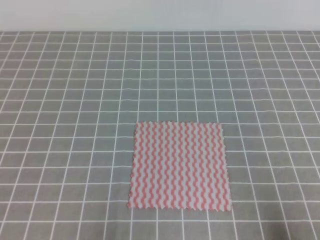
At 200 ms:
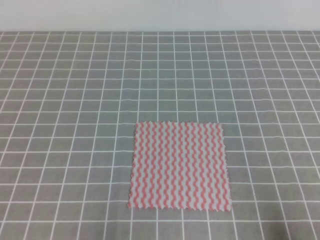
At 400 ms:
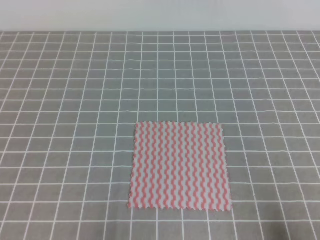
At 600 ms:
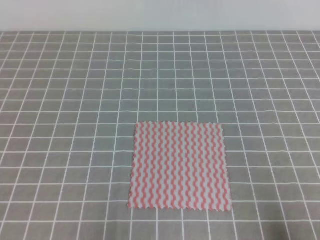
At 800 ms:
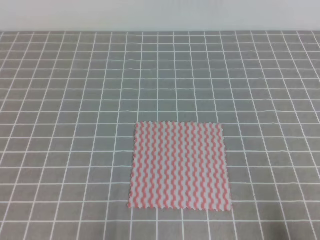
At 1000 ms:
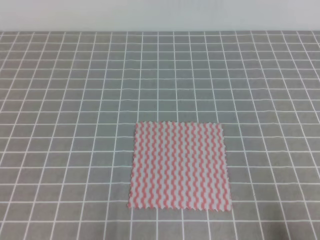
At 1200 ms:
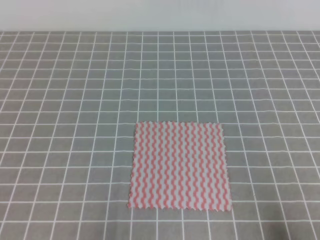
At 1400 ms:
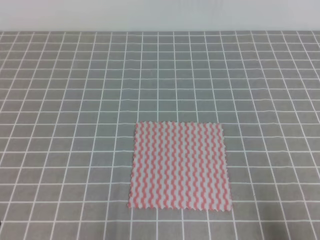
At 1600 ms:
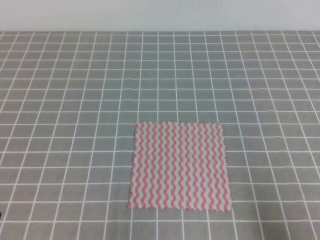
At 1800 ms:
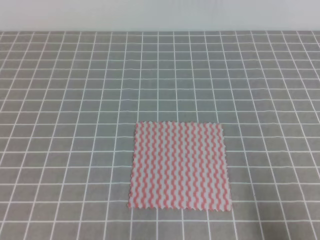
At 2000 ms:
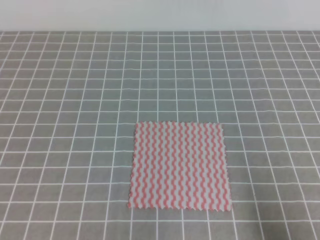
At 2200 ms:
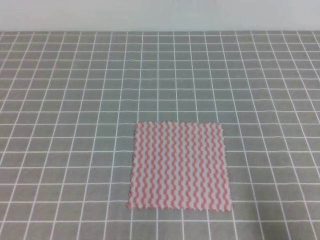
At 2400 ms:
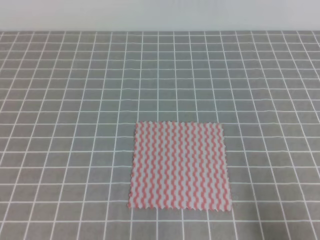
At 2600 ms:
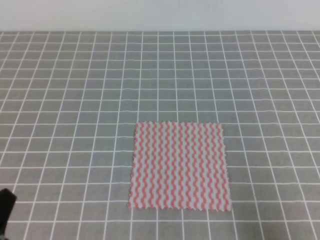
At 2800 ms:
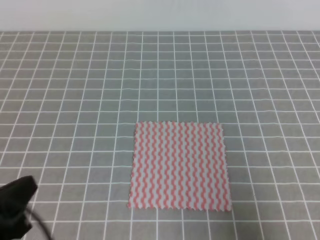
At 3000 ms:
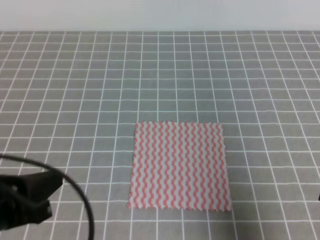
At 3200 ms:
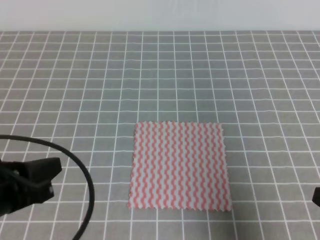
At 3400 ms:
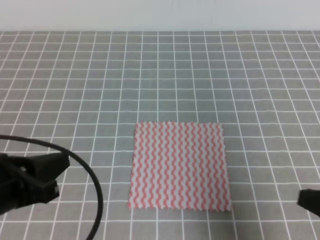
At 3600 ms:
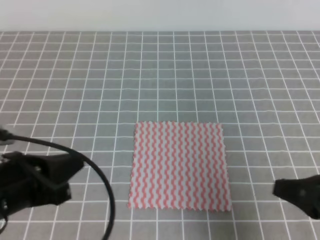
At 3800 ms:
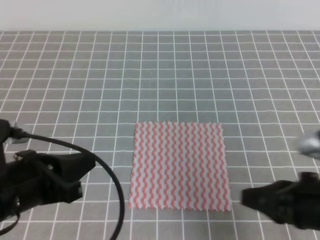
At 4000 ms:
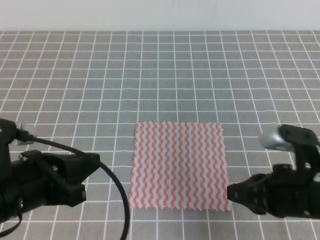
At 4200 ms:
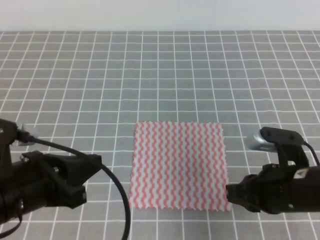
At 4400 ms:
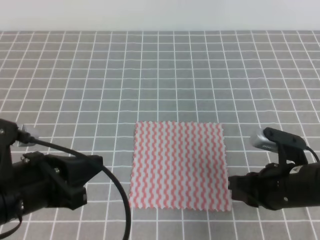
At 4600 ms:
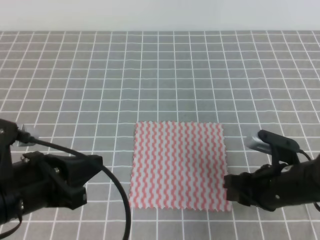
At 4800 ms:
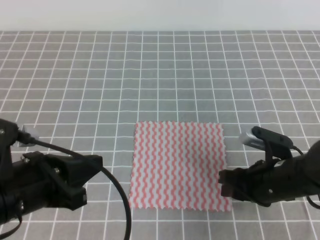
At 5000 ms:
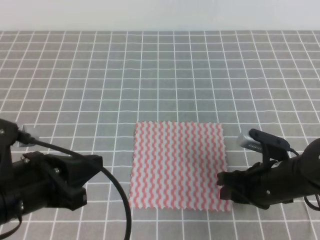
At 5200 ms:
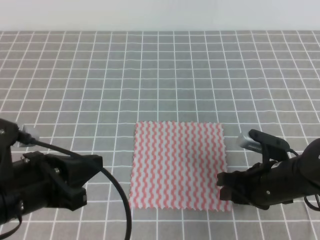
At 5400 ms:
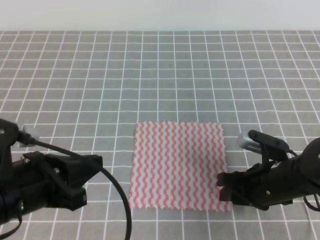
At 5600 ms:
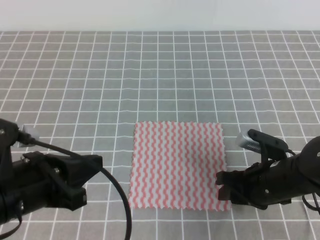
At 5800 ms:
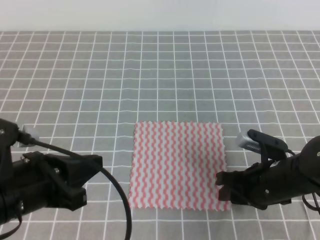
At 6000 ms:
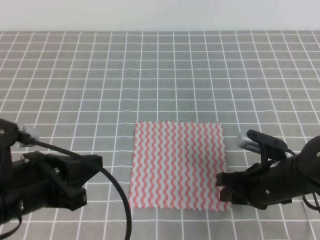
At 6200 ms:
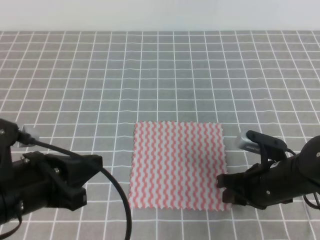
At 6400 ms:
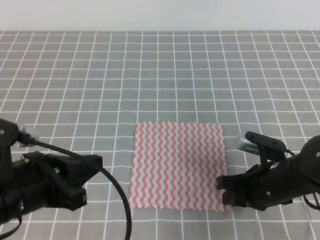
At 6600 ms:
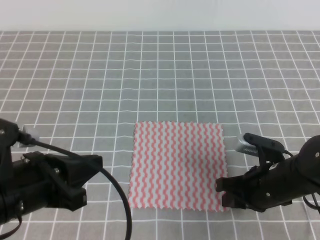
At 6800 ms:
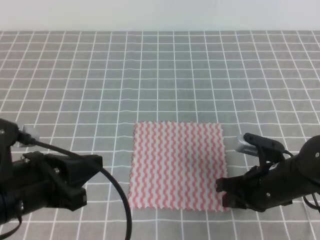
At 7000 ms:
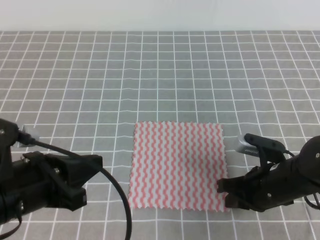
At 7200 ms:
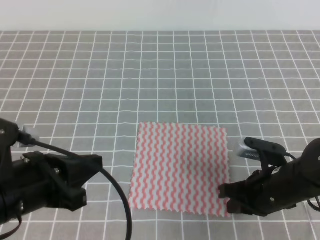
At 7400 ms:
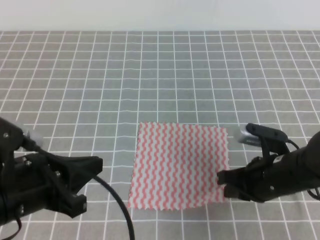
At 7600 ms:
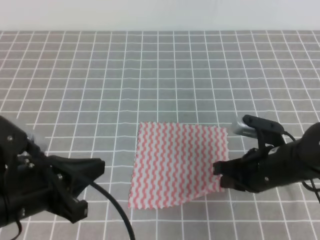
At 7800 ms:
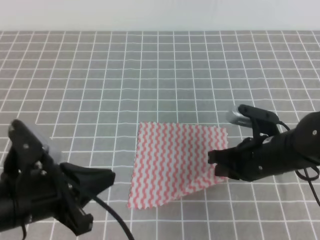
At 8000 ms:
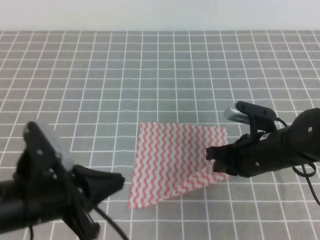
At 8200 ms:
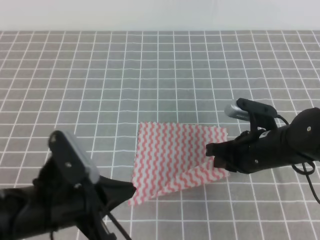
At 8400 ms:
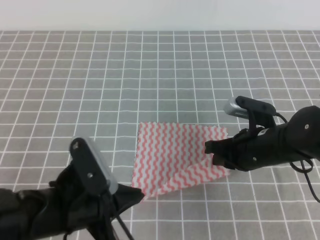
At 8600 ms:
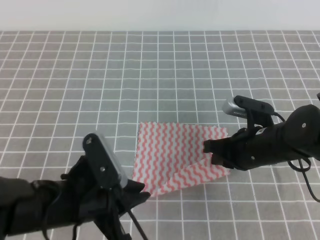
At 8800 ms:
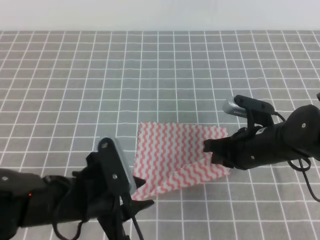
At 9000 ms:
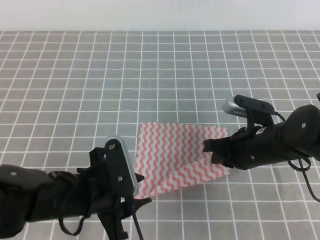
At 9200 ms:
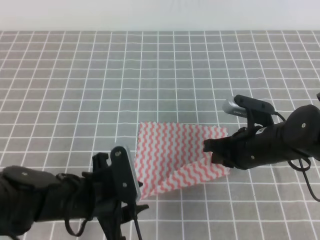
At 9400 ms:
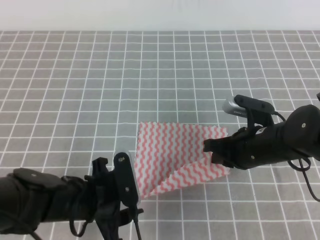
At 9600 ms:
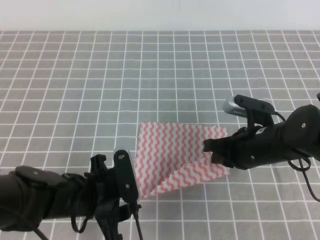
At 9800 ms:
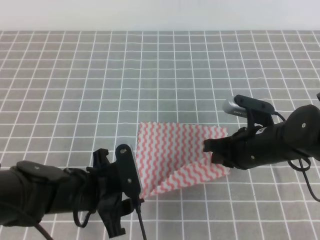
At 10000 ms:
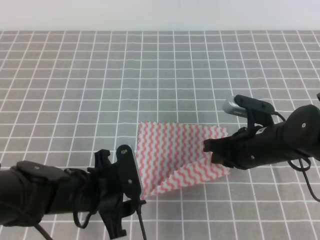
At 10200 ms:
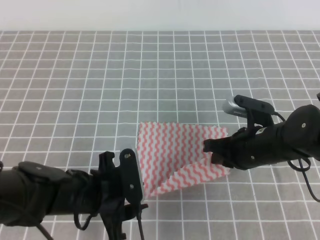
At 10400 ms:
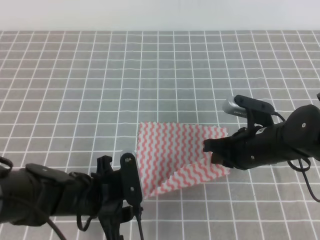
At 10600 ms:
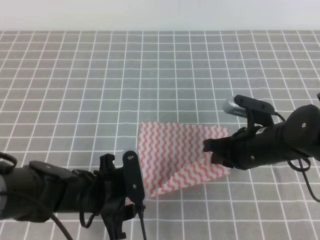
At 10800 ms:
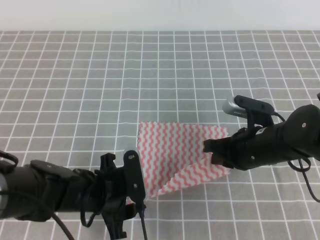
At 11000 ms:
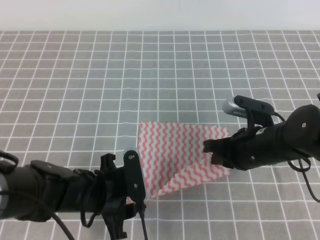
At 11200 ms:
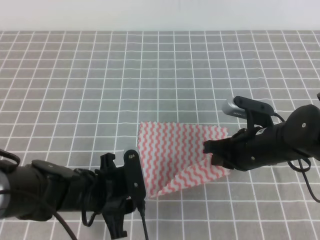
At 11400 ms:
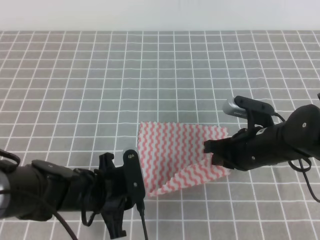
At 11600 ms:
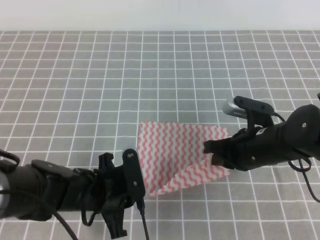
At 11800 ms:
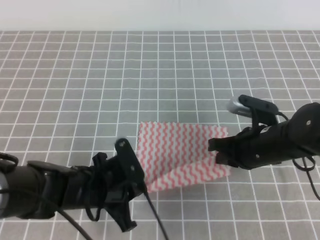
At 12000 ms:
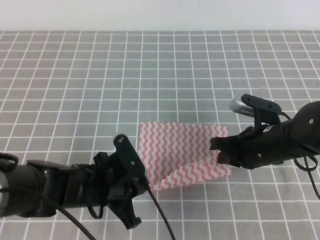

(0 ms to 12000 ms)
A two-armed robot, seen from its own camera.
1600 ms - 3000 ms: The right gripper heads upward, covering roughly 5 cm, while the left gripper travels upward and forward by roughly 10 cm.
3000 ms - 4400 ms: The right gripper moves forward, to the left and downward, roughly 15 cm, and opens its fingers. Meanwhile the left gripper shifts by roughly 5 cm.
4400 ms - 6000 ms: The right gripper shifts by roughly 5 cm, and opens its fingers.
6000 ms - 7600 ms: The right gripper closes up.
7600 ms - 9000 ms: The left gripper moves to the right and downward, about 10 cm, and opens its fingers.
9000 ms - 10400 ms: The grippers move only a little.
10400 ms - 12000 ms: The left gripper closes.

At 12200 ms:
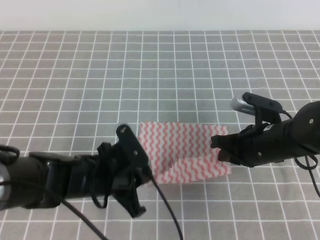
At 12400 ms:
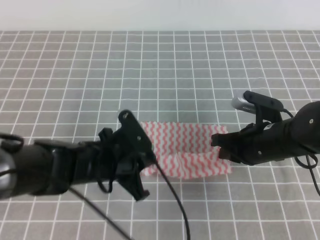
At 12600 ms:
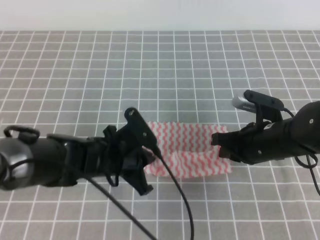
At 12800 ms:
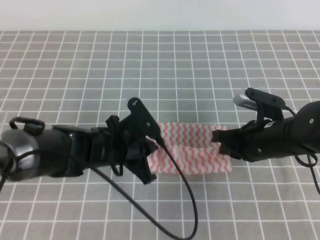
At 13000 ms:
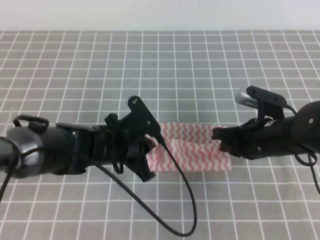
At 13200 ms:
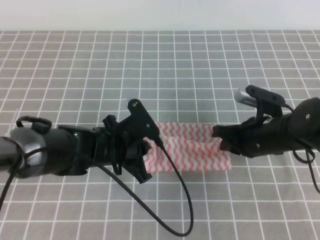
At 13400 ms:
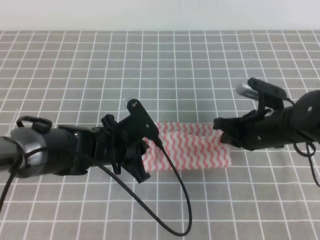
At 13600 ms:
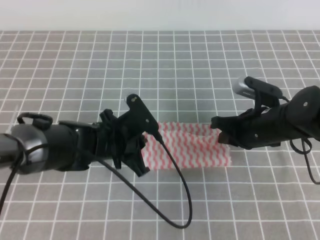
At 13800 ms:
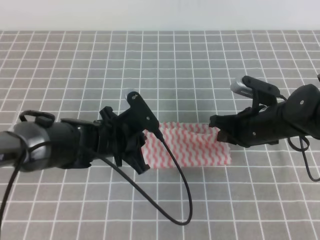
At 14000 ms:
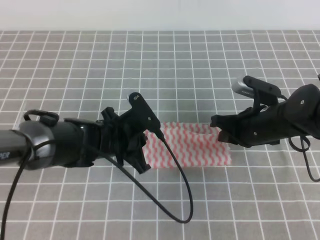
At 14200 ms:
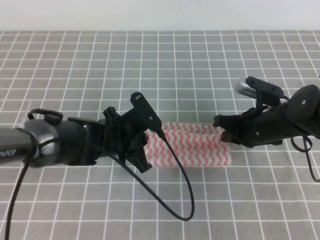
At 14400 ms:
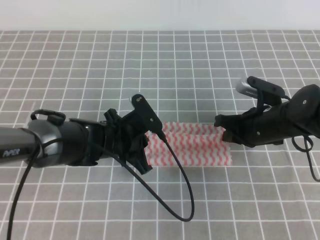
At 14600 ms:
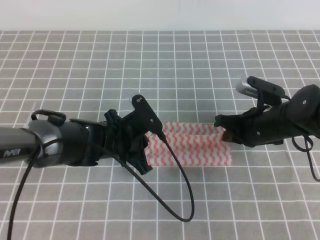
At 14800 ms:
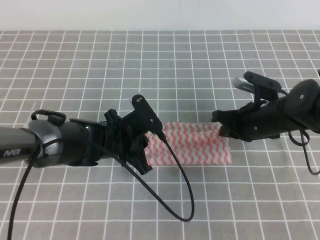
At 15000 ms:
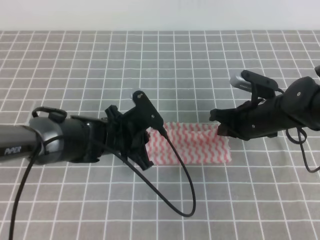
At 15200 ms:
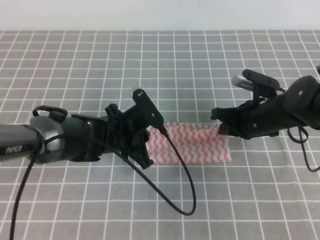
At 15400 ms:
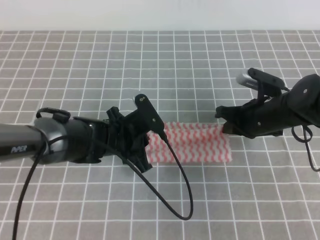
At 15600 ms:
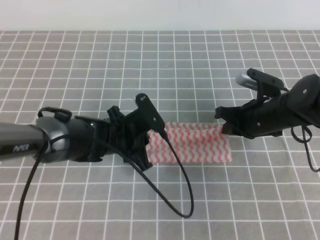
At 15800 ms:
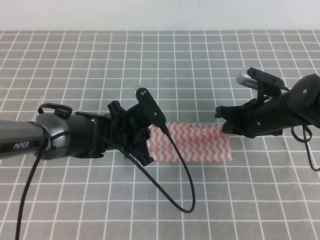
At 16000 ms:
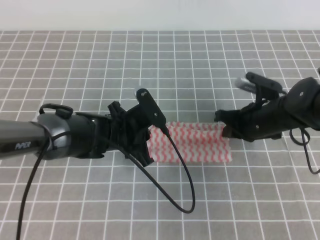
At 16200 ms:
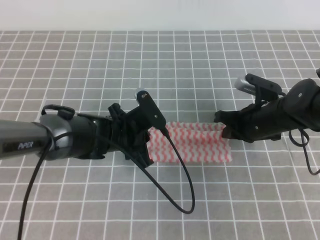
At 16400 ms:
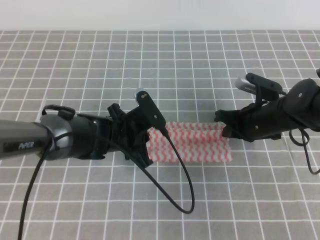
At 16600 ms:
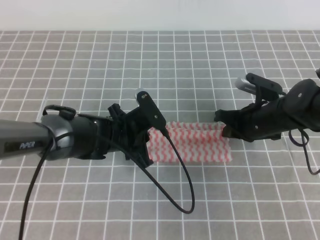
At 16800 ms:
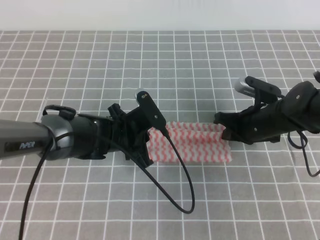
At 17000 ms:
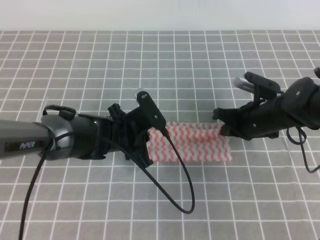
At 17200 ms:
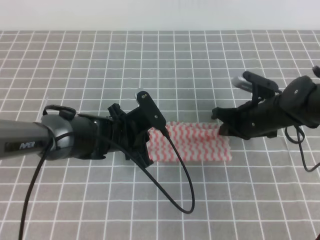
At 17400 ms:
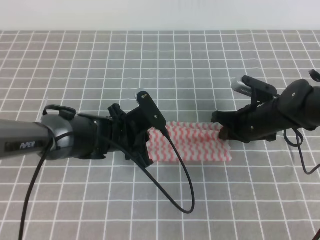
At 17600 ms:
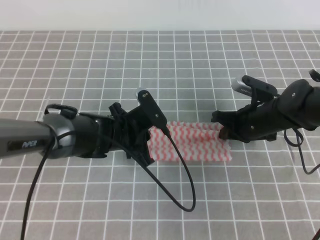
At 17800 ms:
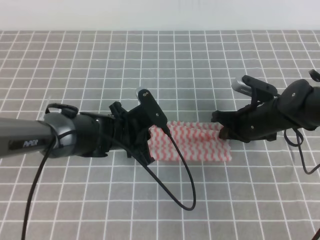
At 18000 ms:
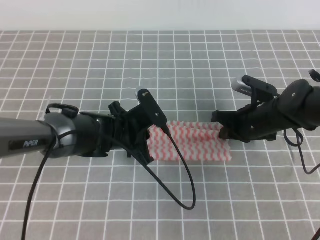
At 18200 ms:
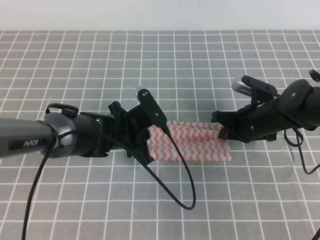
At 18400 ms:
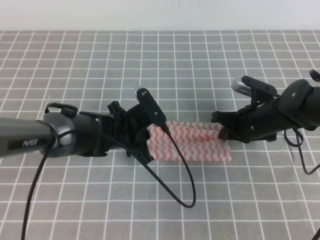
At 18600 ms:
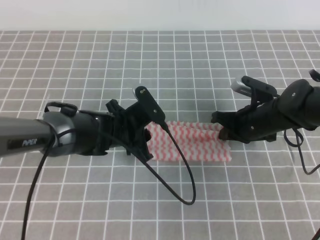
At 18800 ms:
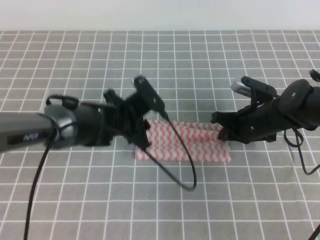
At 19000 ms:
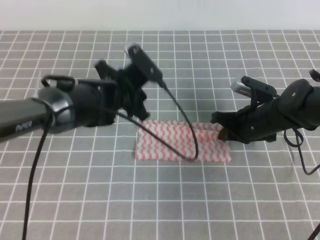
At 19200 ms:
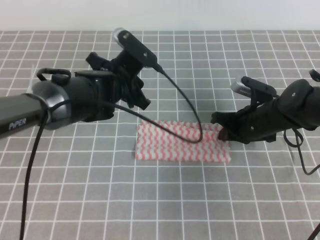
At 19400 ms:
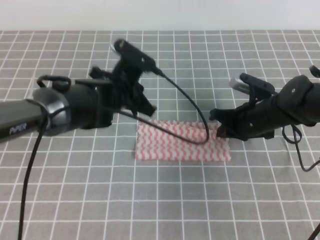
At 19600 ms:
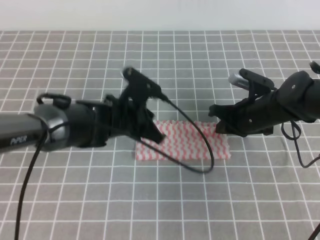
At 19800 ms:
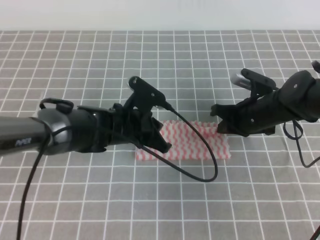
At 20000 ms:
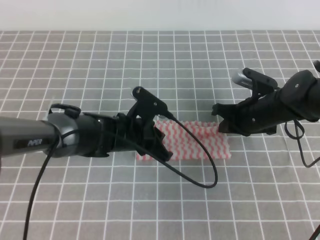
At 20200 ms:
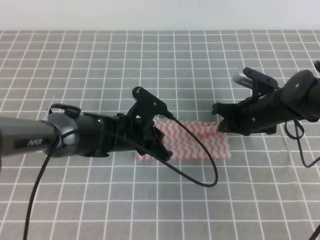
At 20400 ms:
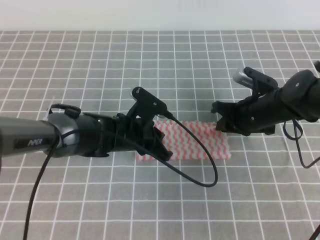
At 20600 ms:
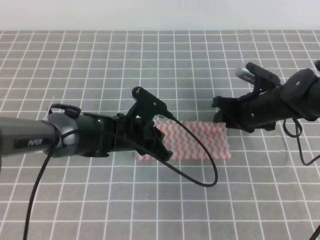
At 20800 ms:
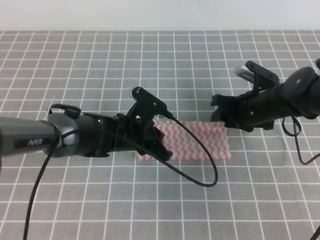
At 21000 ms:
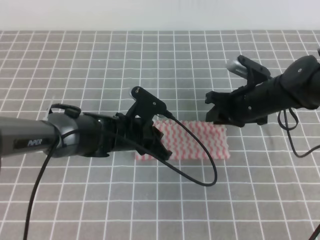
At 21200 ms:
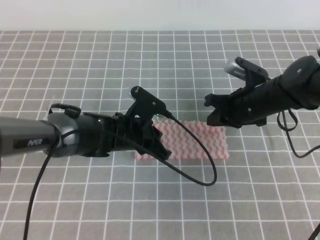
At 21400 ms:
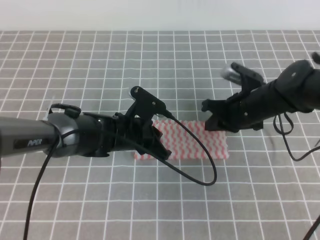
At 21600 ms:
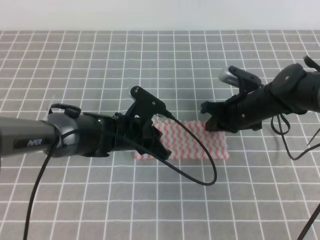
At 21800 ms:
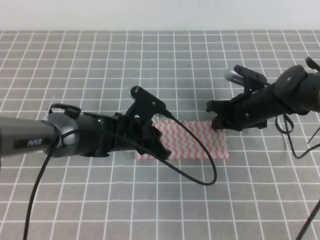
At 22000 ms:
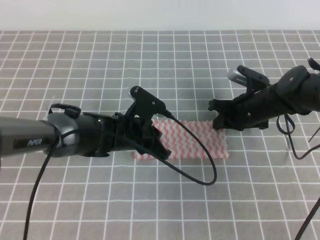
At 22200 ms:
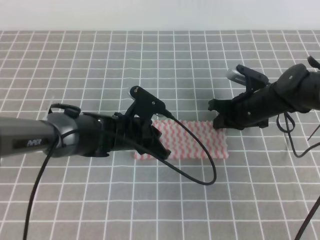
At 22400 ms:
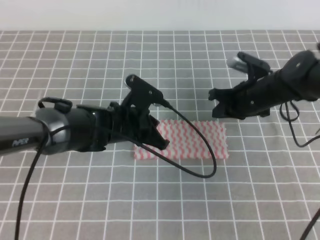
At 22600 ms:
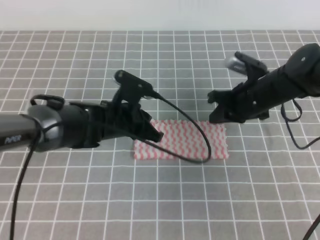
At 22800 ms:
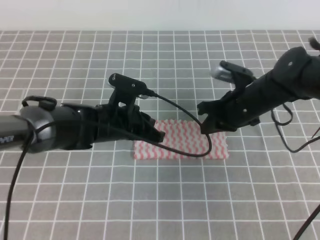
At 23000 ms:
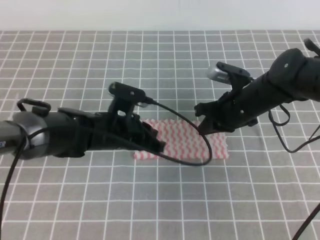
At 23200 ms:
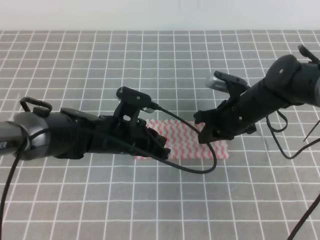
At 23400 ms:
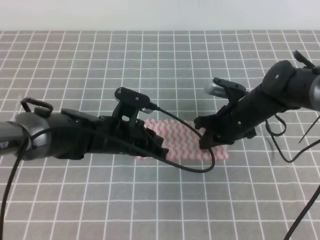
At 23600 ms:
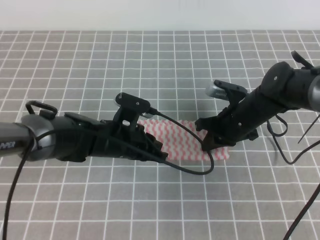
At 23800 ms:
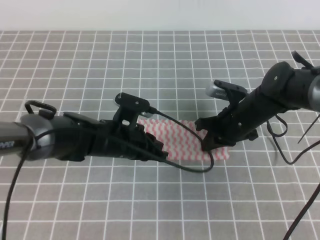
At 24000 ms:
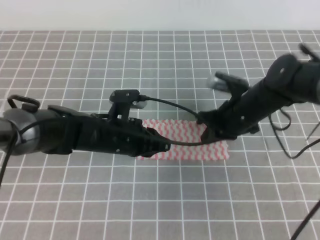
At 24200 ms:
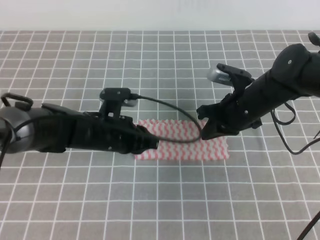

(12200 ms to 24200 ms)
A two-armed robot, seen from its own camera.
12200 ms - 13800 ms: The left gripper travels forward by approximately 5 cm.
13800 ms - 16600 ms: The grippers move only a little.
16600 ms - 18200 ms: Both grippers stay put.
18200 ms - 19800 ms: The left gripper opens, then closes once more.
19800 ms - 21200 ms: The right gripper opens and closes again.
21200 ms - 22600 ms: The grippers make only small movements.
